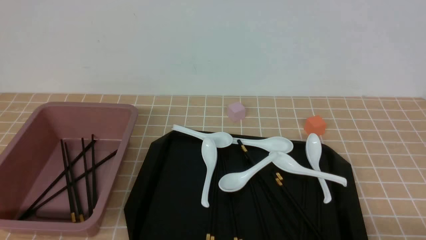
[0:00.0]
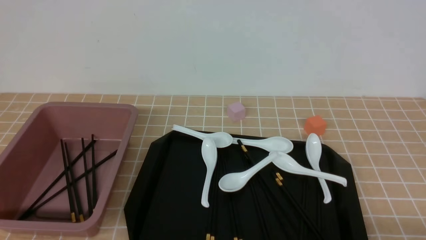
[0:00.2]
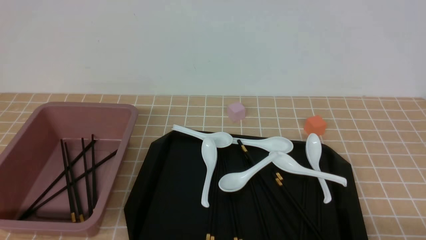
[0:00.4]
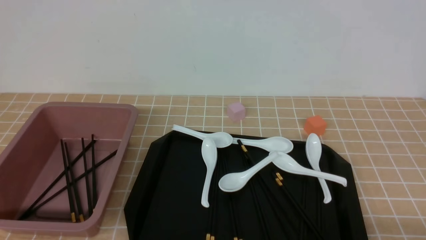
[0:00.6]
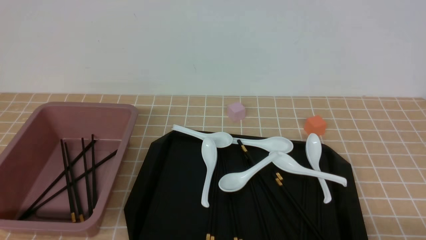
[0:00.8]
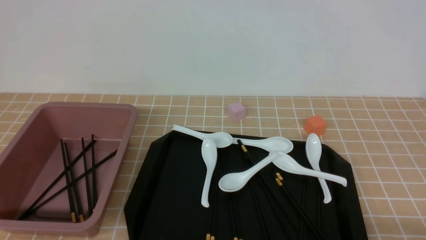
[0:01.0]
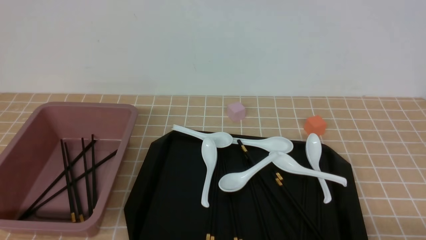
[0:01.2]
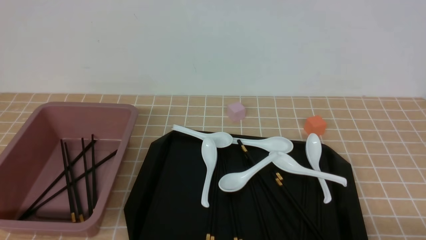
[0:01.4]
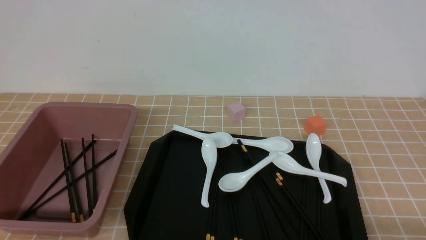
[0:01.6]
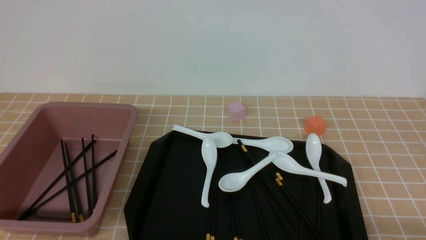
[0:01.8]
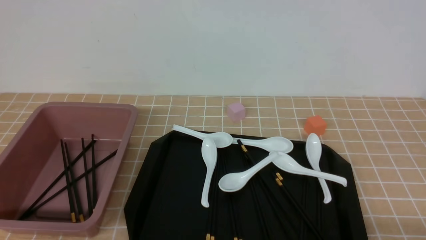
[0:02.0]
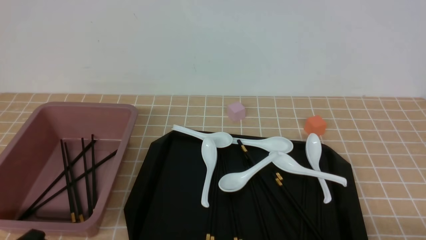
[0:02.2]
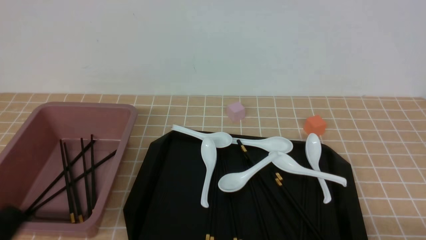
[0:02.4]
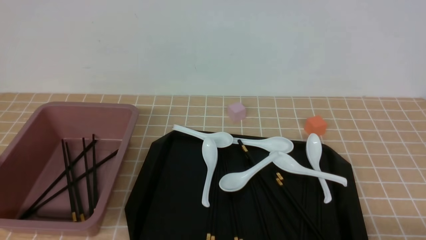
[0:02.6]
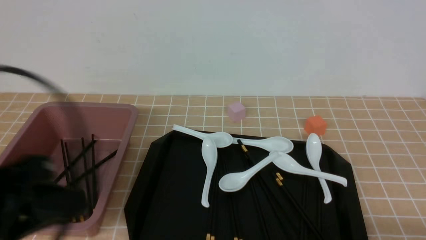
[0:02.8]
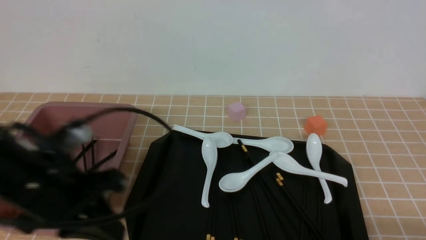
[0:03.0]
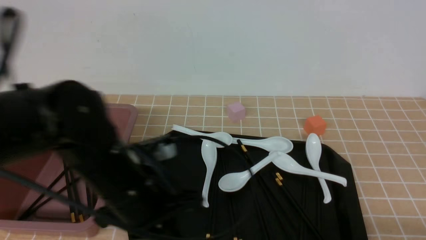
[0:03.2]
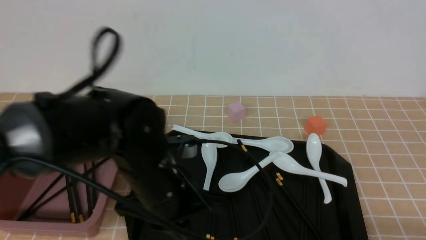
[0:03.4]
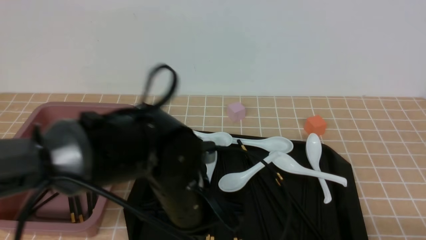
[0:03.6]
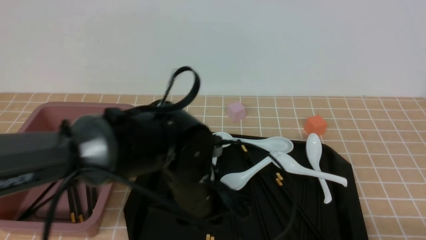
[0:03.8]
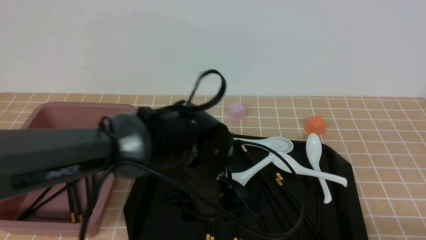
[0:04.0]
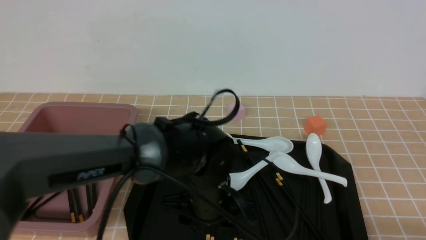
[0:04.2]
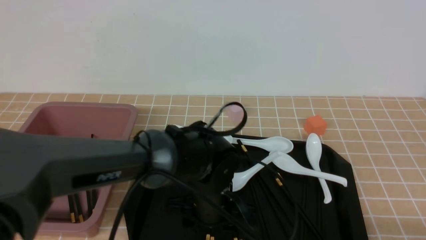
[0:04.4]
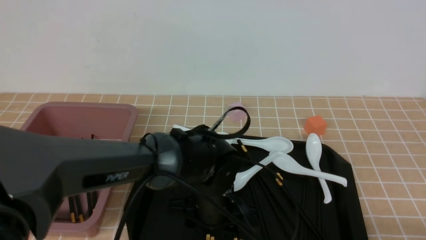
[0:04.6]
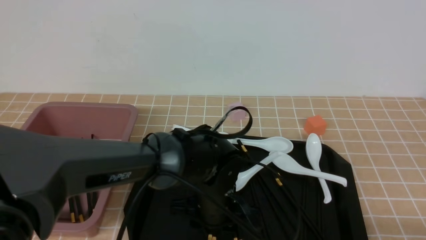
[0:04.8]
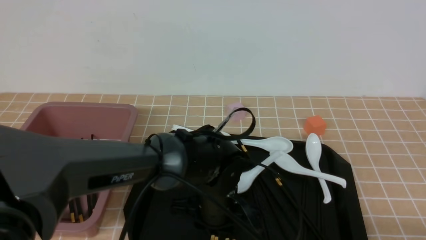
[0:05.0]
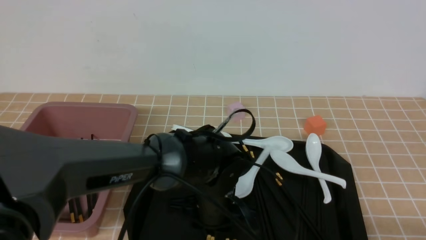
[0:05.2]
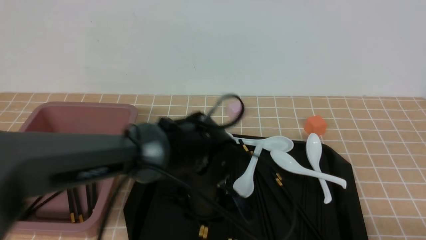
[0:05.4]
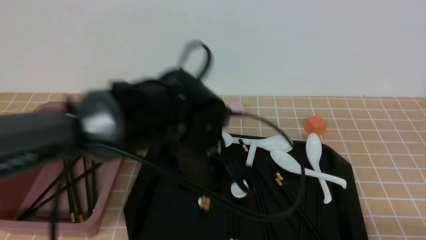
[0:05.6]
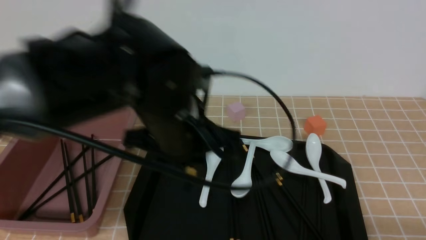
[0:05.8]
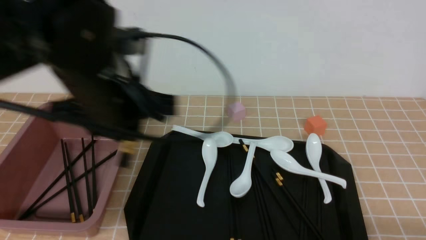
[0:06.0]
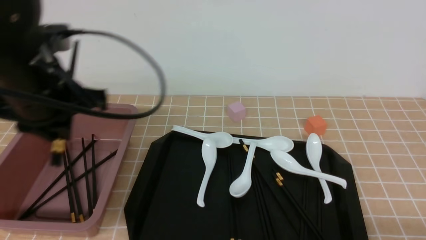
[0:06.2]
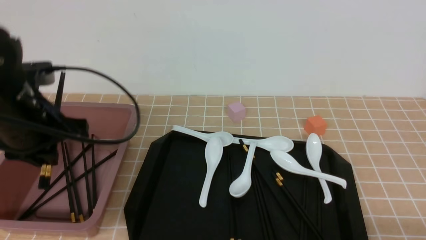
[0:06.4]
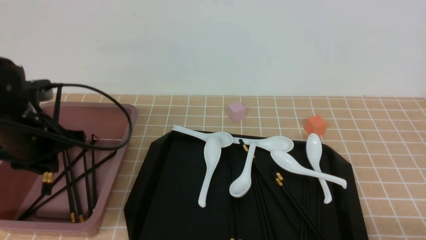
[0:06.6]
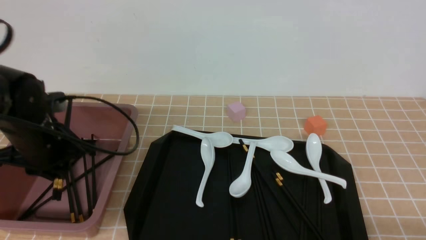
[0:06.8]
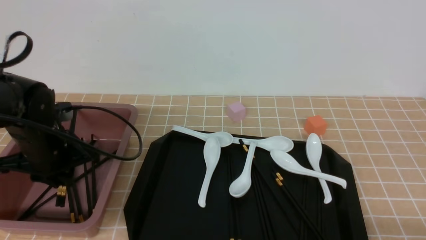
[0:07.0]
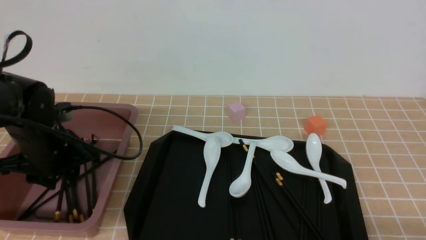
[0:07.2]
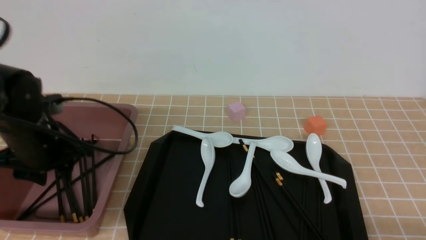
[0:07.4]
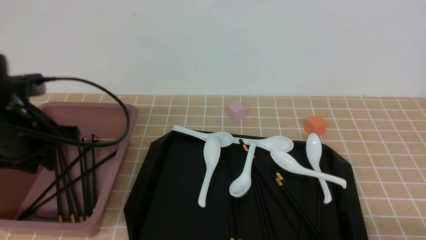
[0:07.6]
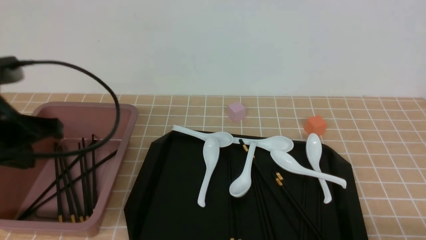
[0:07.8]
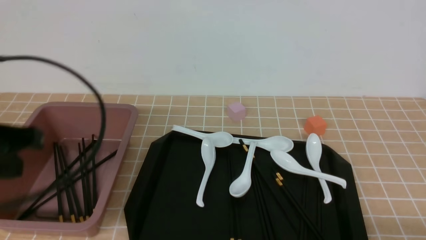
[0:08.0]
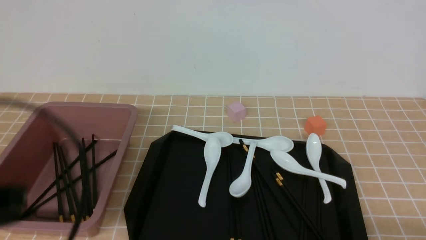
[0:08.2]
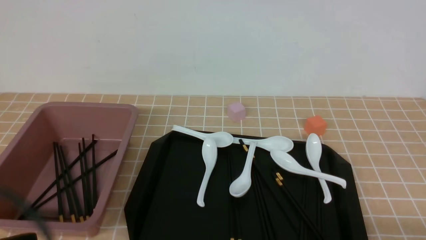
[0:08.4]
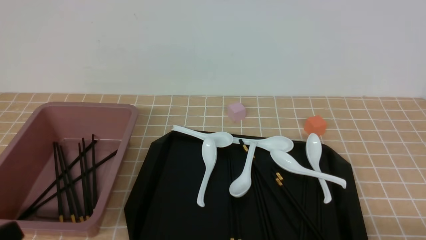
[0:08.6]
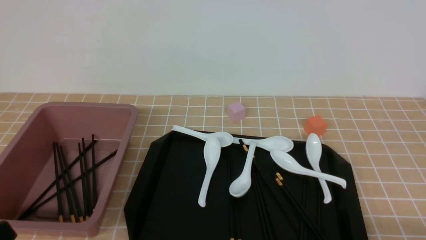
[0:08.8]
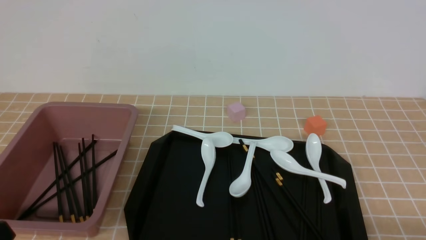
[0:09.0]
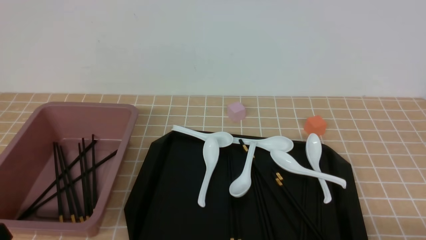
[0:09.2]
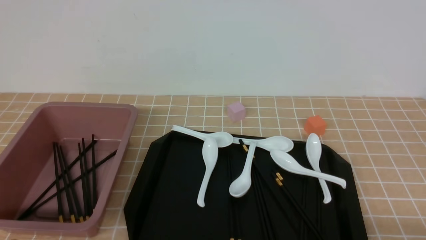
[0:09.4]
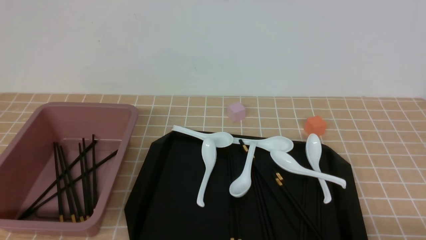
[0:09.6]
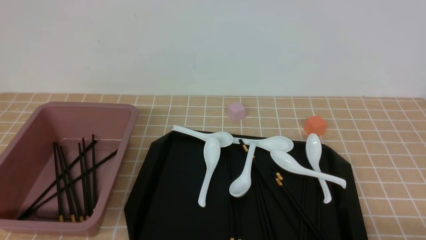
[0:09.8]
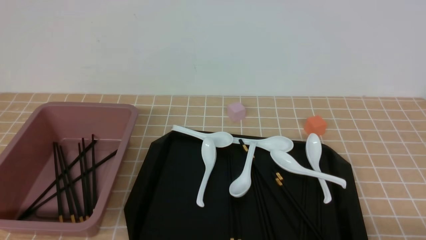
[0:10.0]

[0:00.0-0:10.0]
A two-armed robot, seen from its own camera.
Step, 0:00.0 to 0:05.8: use the left arm to grab a pair of chopsticks.
Step, 0:06.0 to 0:07.6: use the left arm to put the chopsticks into the lunch box.
0:00.0 to 0:01.4: Both grippers stay put.
0:01.4 to 0:02.8: The left gripper moves upward and forward, some 15 cm.
0:02.8 to 0:04.2: The left gripper moves to the right, downward and forward, approximately 30 cm, and opens its fingers.
0:04.2 to 0:05.8: The left gripper moves upward and to the left, roughly 15 cm, and closes its fingers.
0:05.8 to 0:07.2: The left gripper goes roughly 20 cm to the left and downward, and opens up.
0:07.2 to 0:08.6: The left gripper shifts roughly 25 cm backward, and closes its fingers.

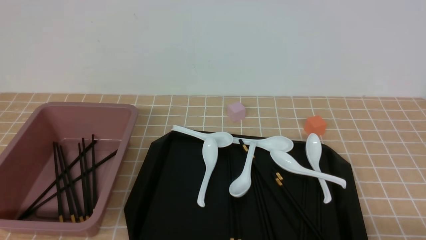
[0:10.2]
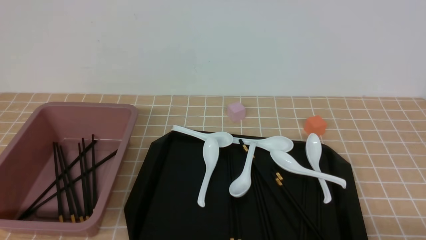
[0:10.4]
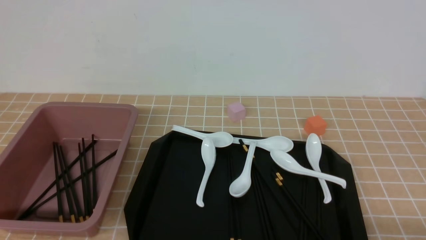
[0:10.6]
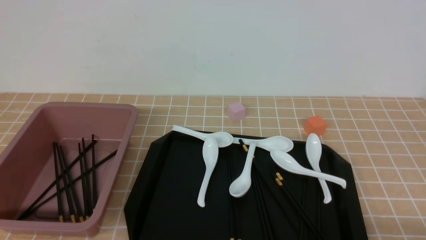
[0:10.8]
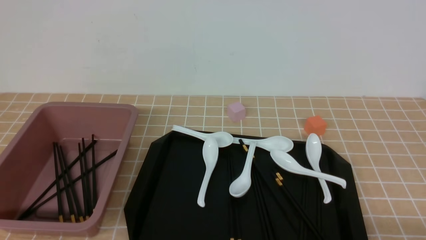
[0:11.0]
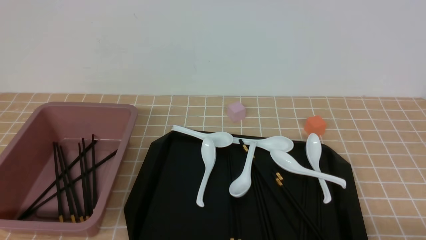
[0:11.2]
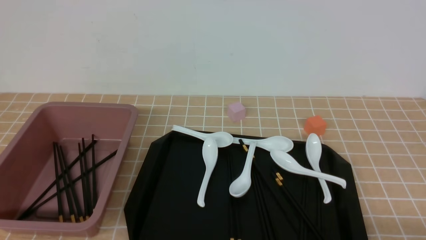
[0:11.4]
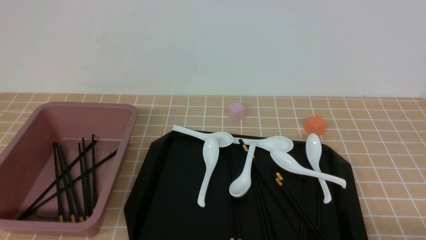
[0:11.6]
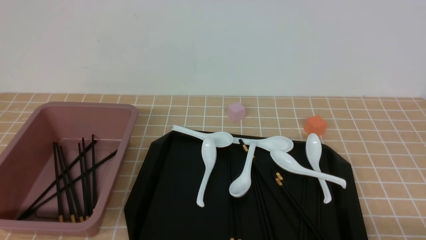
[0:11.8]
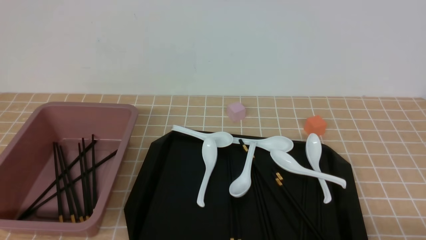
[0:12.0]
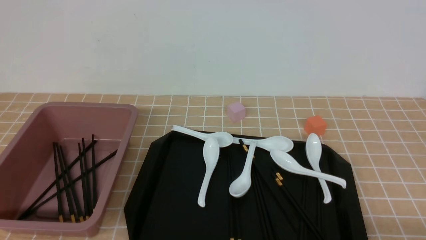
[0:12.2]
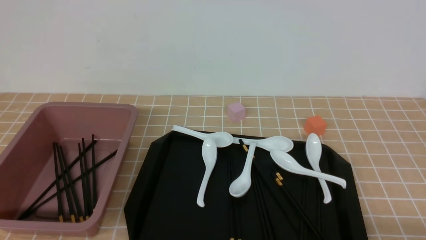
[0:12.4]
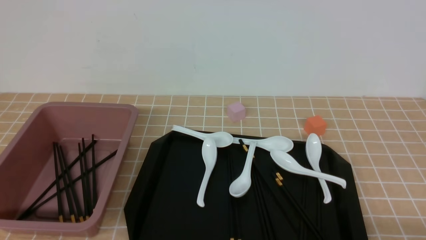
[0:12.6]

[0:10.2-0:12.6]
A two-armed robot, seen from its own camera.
0:10.2 to 0:12.6: Both grippers stay put.
